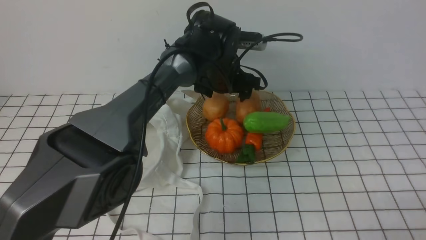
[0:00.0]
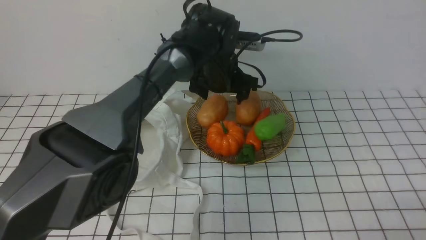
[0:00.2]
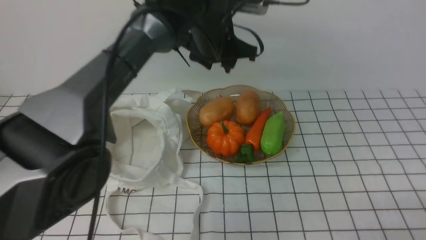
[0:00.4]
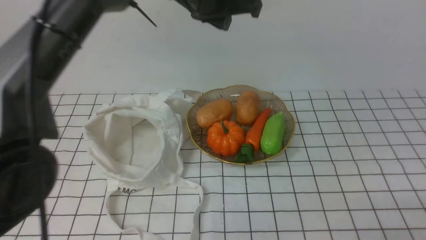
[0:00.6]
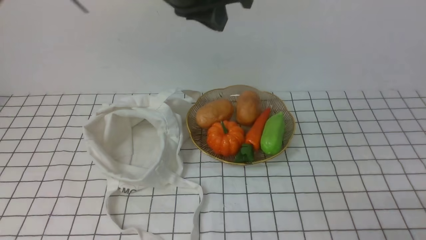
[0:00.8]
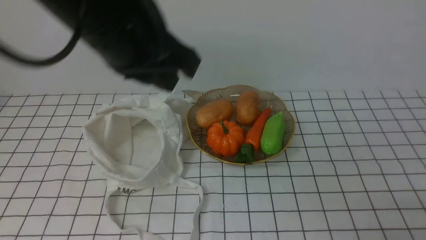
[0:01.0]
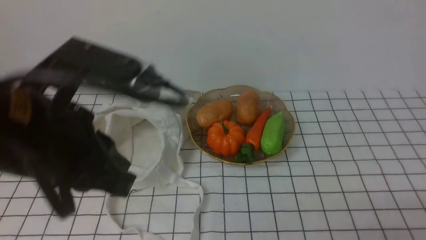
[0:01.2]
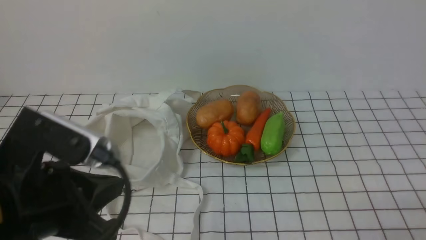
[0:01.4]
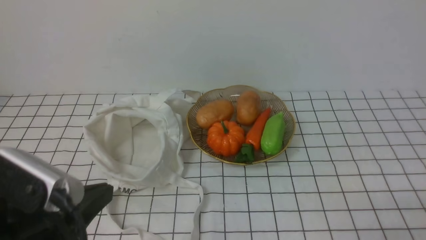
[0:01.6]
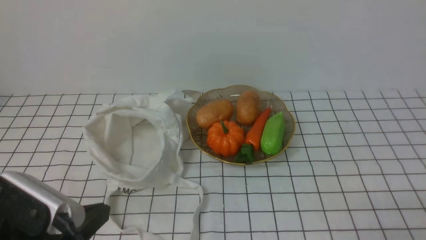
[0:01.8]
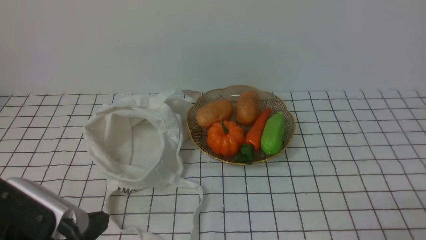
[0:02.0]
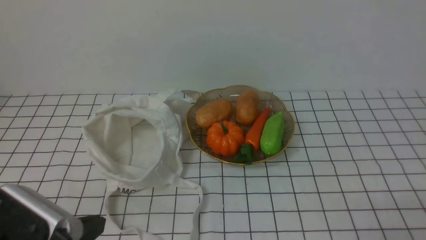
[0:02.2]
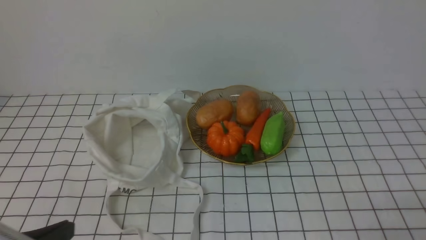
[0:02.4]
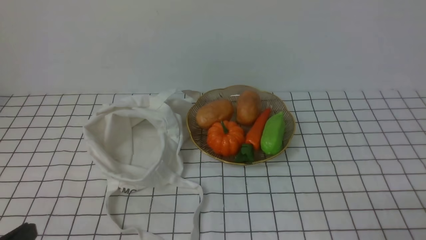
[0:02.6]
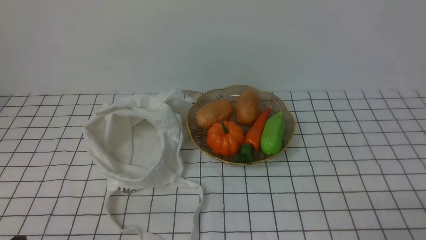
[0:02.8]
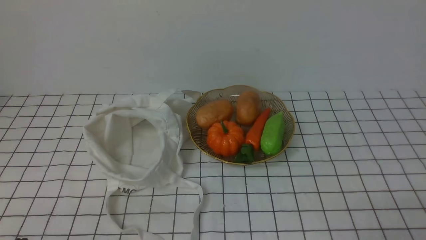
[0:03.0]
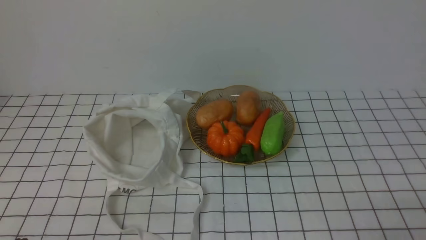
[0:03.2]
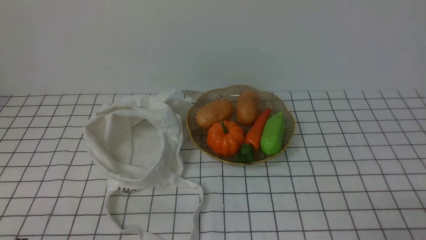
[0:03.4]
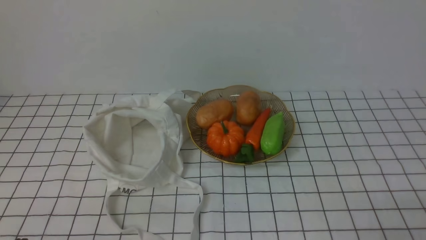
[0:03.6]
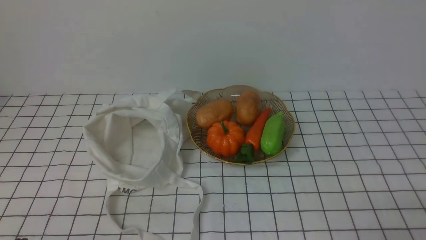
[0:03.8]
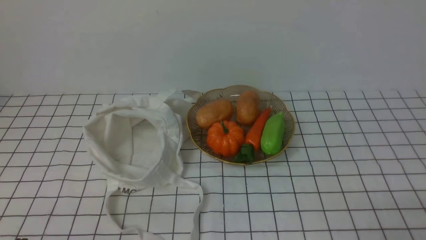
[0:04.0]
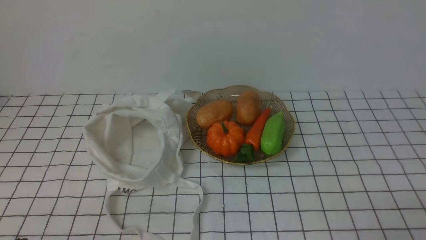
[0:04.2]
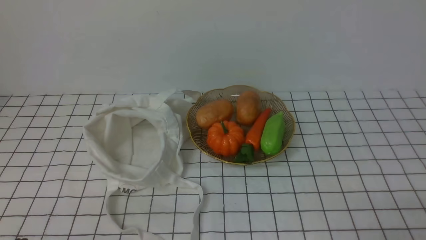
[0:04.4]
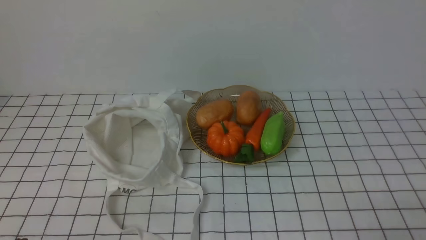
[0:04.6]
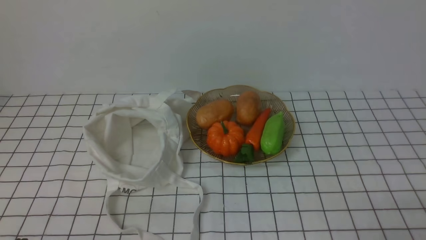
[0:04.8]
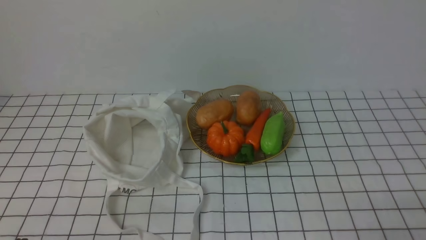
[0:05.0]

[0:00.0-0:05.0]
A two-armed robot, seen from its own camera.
Task of the whole recording: take vegetables from bag on white checkered tablecloth place on plate.
0:00.0 to 0:01.6: The left gripper goes some 40 cm backward and to the left, and closes its fingers.
0:01.6 to 0:03.4: The left gripper travels downward, to the left and backward by about 15 cm.
0:03.4 to 0:05.0: Both grippers stay about where they are.
